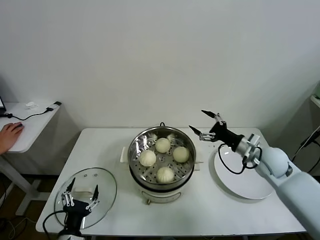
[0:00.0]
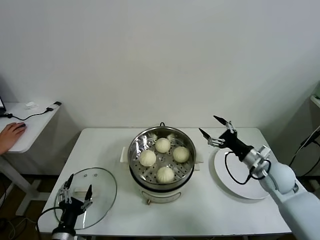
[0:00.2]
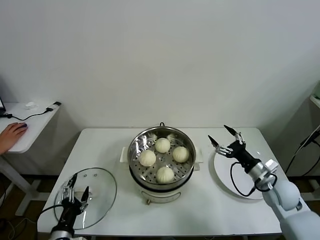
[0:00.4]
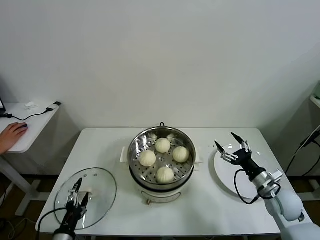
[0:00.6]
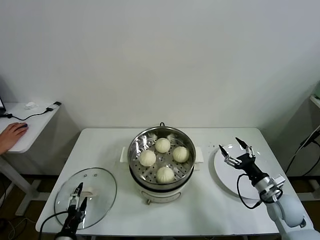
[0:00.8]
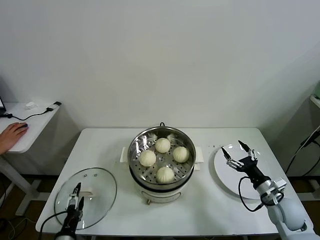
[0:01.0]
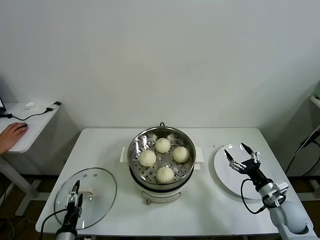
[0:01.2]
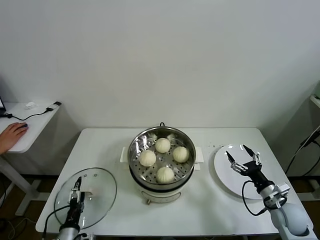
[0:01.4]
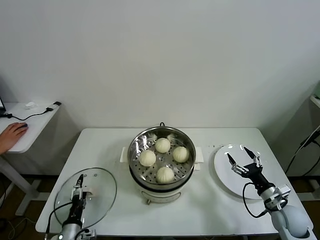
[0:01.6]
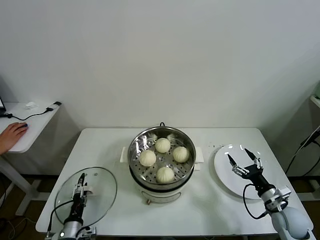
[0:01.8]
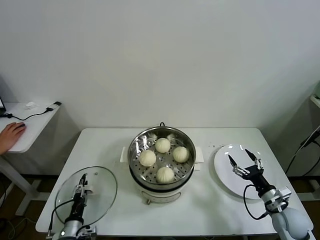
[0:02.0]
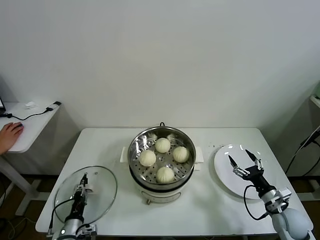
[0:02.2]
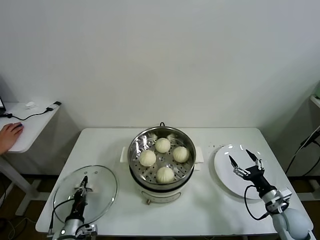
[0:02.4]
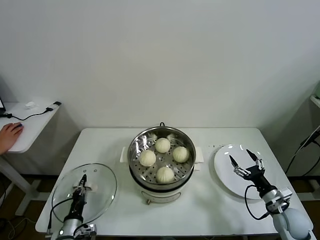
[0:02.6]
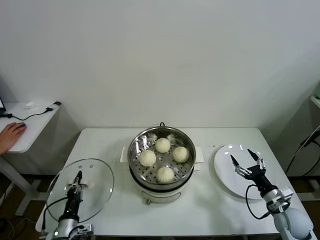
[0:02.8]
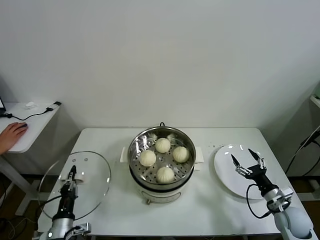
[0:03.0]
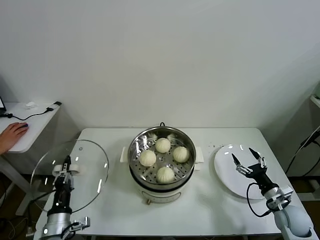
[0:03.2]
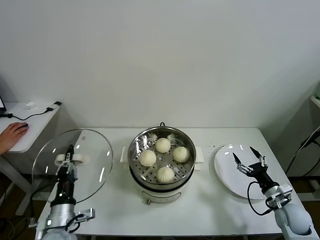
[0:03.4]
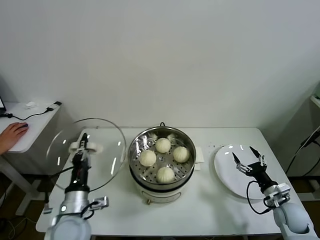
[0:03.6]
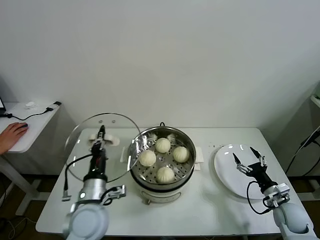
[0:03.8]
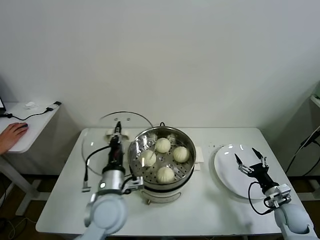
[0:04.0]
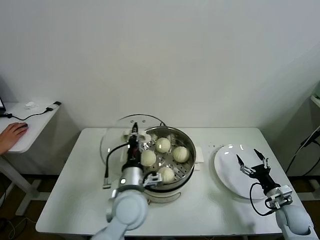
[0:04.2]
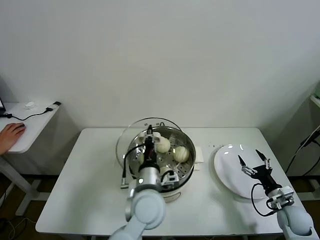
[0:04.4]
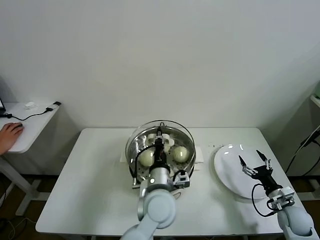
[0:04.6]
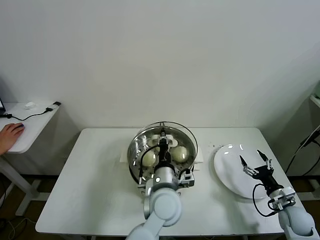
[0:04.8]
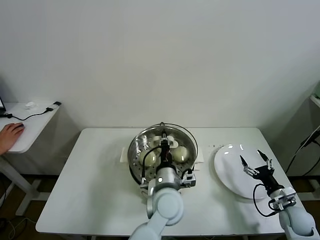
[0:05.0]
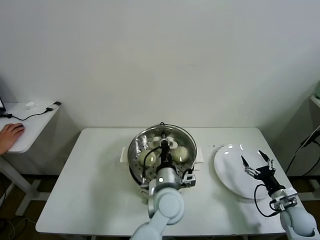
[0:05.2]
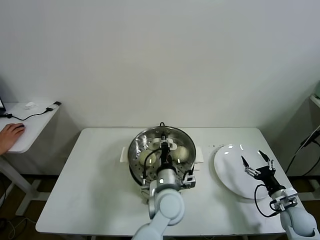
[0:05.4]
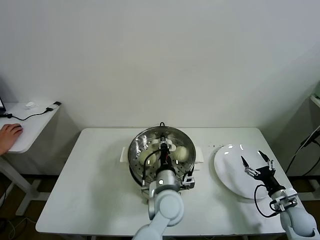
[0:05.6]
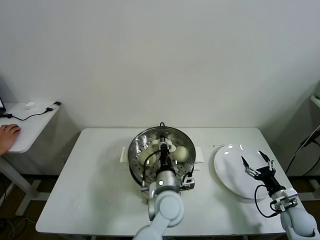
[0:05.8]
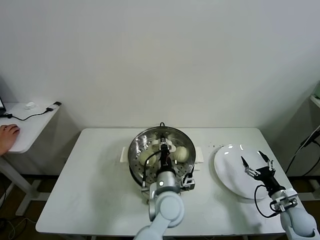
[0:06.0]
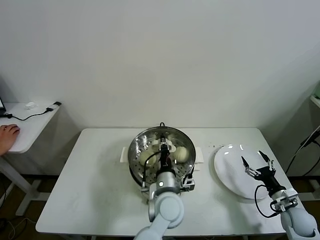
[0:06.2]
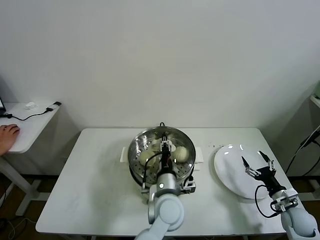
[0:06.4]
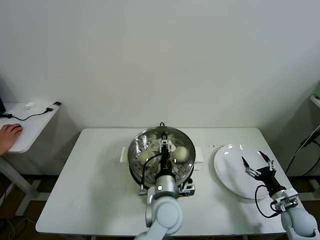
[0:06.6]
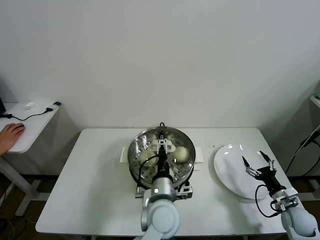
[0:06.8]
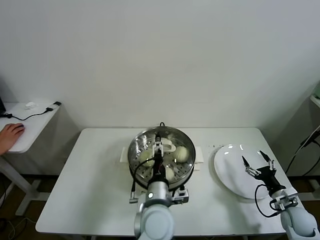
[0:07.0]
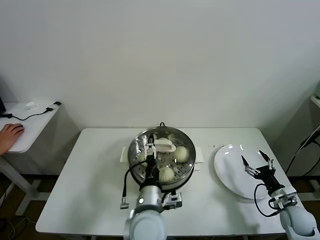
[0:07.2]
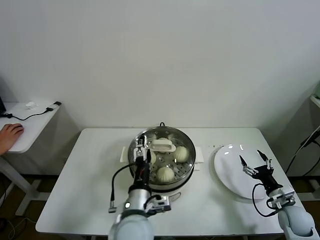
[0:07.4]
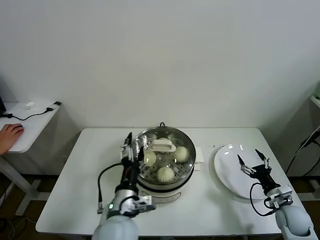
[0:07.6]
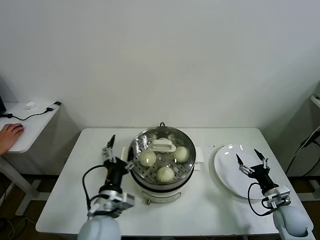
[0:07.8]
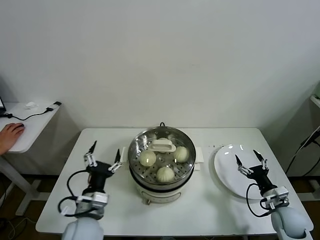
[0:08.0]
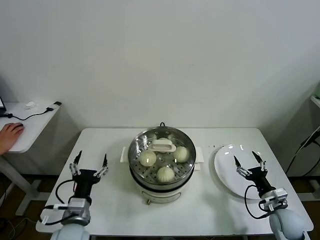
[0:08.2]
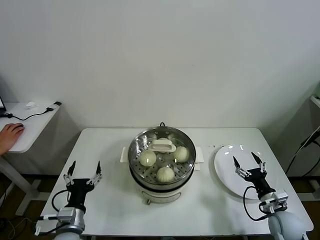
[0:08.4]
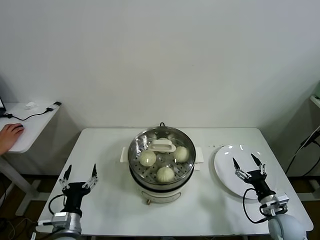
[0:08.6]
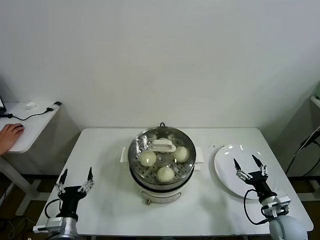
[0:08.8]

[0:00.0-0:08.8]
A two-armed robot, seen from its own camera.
Task of the whole recording: take steamed baozi put them in steamer.
Step, 0:00.0 to 0:02.4: Grasp the pot lid with left gripper.
Step, 0:02.6 to 0:06.8: Place the pot lid on the steamer with left gripper.
0:00.0 to 0:01.4: The right gripper moves downward, backward and to the right, some 20 cm, while the left gripper moves downward, some 5 cm.
0:01.4 to 0:03.0: The left gripper closes up.
0:03.0 to 0:04.4: The left gripper is displaced to the right and upward by about 30 cm.
0:04.4 to 0:05.8: The left gripper shifts approximately 5 cm to the right.
0:05.8 to 0:07.4: The left gripper travels backward and to the left by about 10 cm, and opens its fingers.
0:07.4 to 0:08.8: The left gripper travels to the left and downward by about 25 cm, while the right gripper is displaced to the left by some 5 cm.

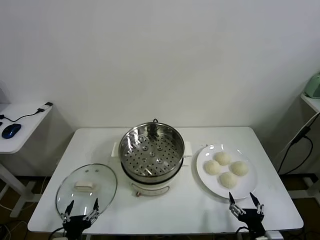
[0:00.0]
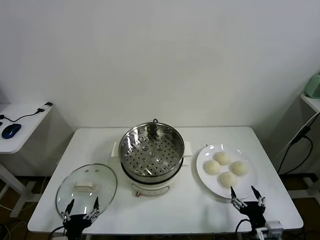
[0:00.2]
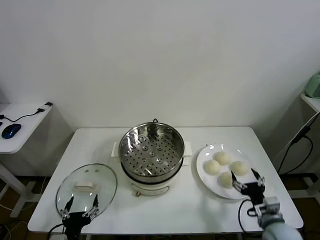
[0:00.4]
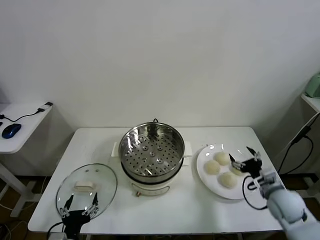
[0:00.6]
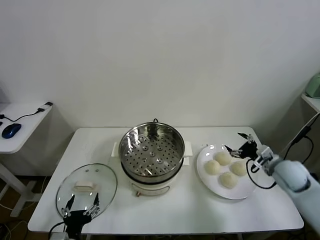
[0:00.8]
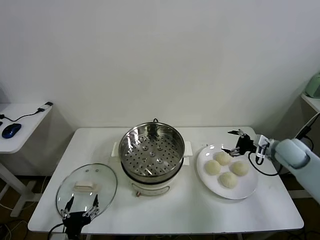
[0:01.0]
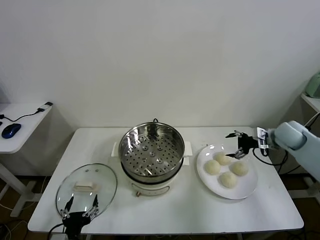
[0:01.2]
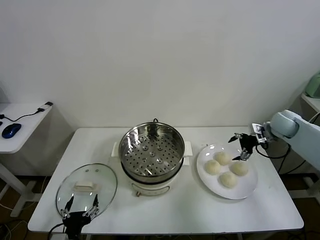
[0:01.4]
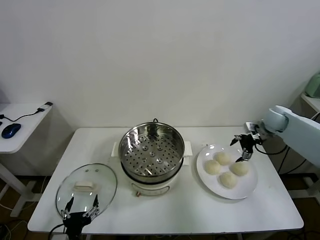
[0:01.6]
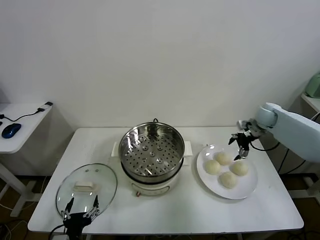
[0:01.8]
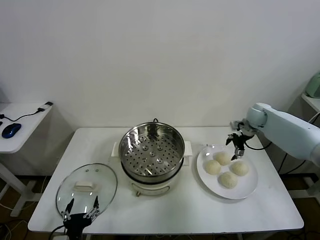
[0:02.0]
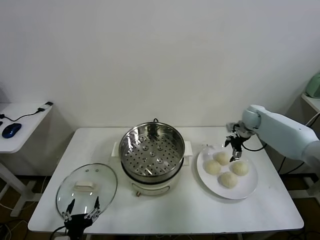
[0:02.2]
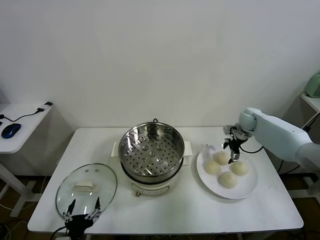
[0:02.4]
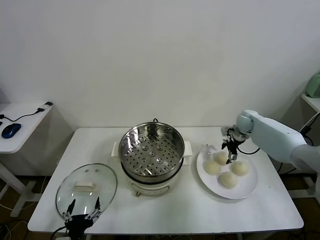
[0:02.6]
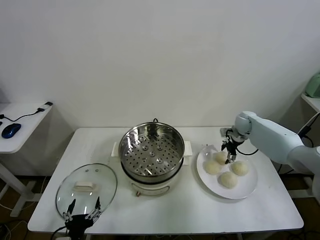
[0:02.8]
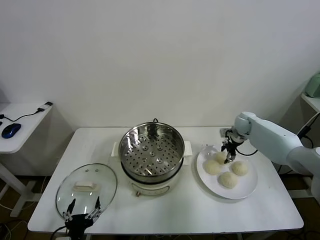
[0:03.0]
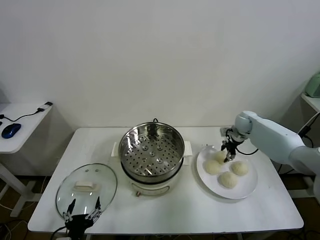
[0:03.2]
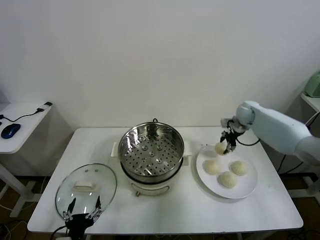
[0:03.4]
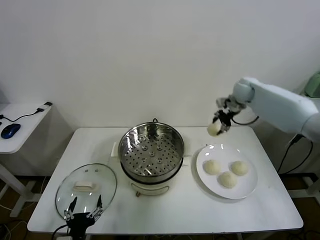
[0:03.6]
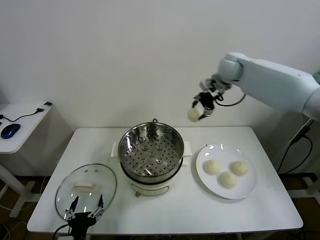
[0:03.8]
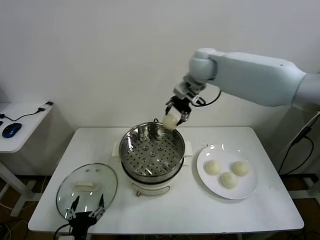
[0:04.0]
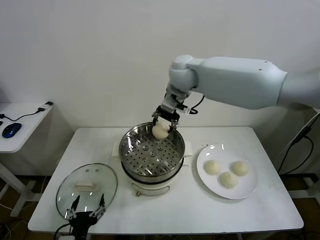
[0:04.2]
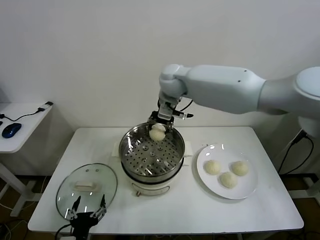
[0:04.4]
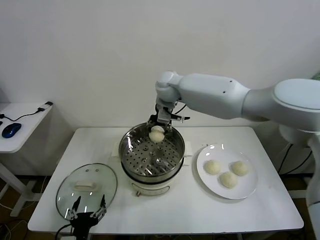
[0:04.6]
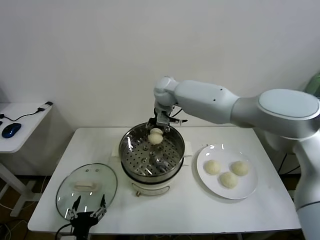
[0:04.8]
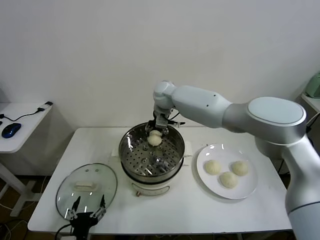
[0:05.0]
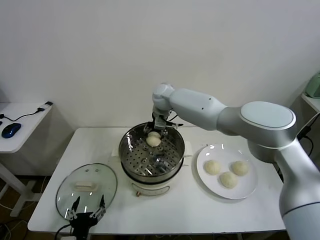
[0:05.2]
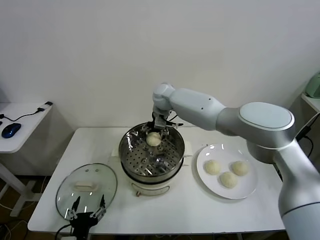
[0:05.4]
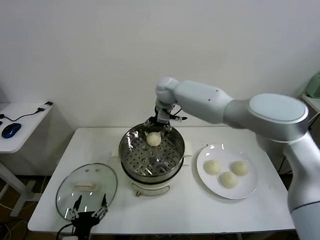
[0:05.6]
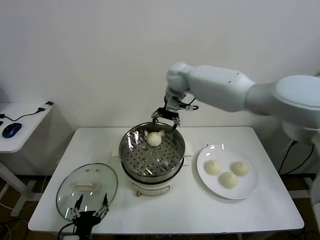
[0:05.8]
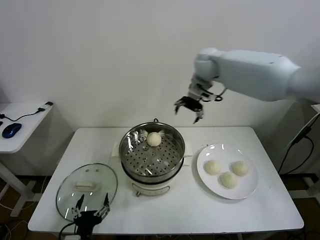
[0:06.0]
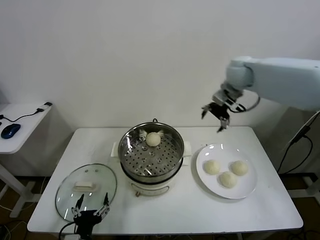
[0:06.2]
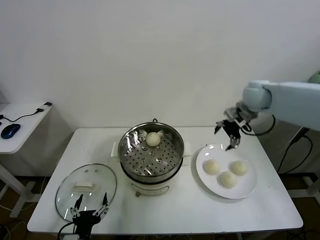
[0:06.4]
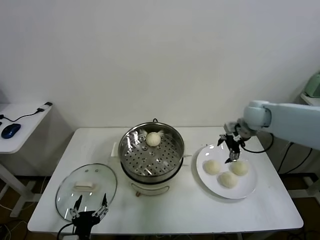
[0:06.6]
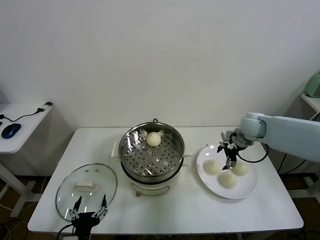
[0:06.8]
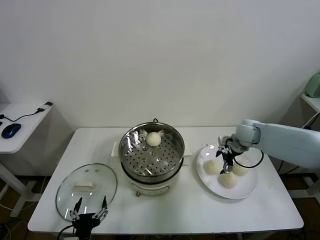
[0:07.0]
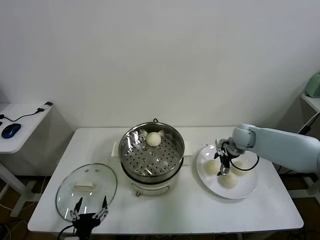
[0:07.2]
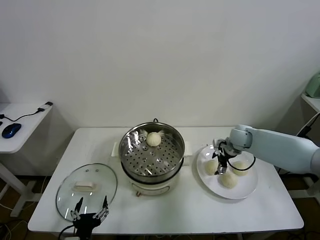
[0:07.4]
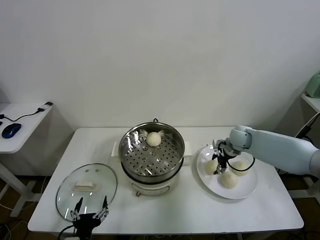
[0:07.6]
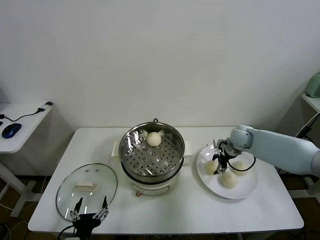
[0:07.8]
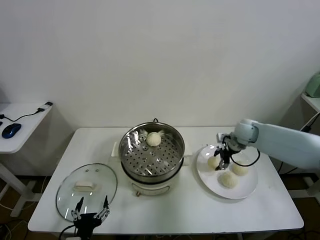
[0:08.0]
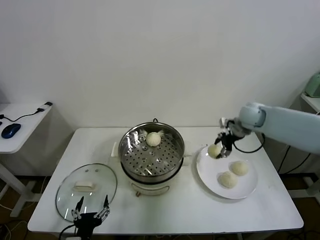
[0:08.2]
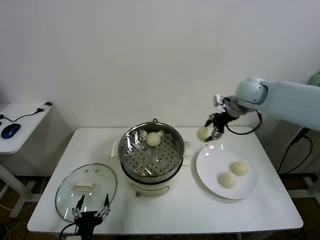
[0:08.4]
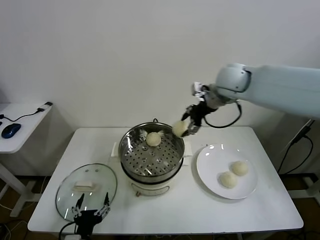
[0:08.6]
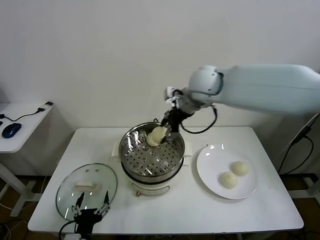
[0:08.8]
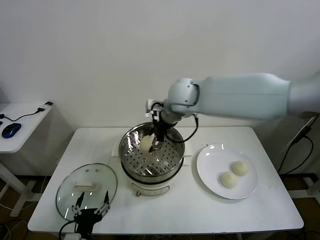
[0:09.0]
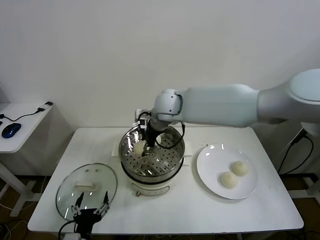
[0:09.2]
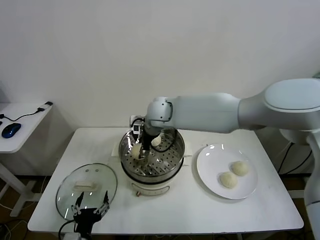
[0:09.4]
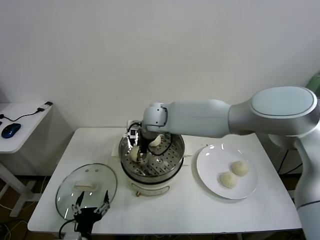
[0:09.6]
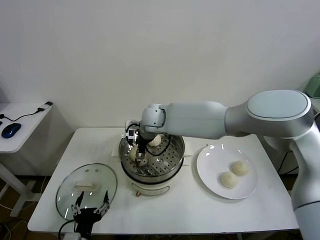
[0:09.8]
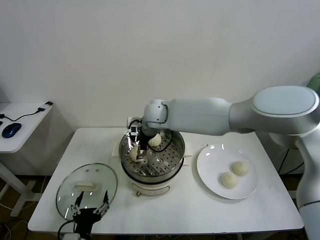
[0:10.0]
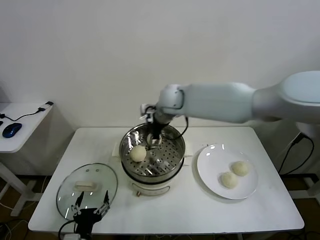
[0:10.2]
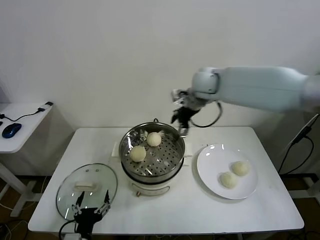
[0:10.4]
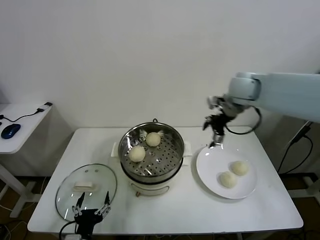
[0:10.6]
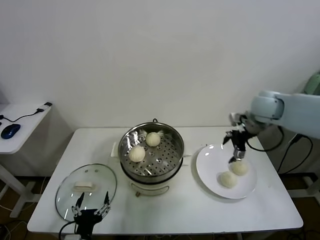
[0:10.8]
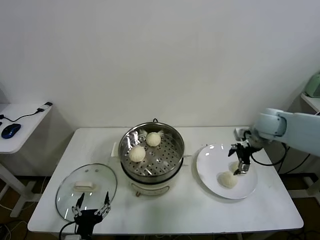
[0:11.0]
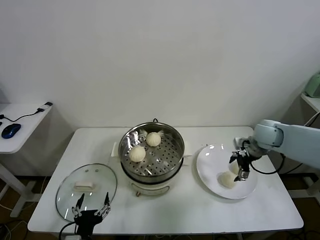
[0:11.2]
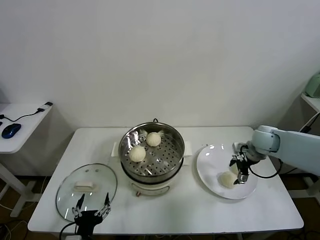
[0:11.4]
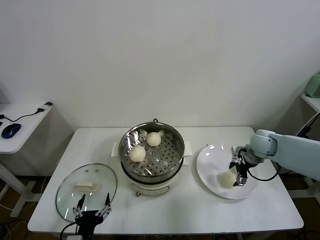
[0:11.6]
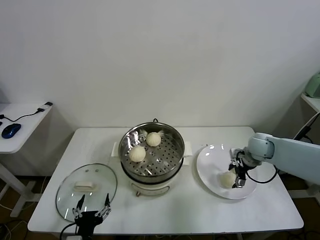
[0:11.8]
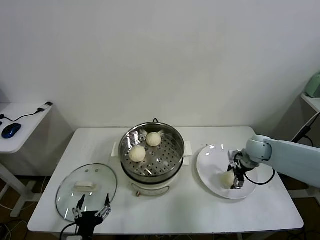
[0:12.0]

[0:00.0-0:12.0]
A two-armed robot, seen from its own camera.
Task of the whole recording: take steamed baozi put them in steamer.
Step, 0:00.0 to 0:03.0: Grasp the baozi in the plate with right gripper.
Step, 0:03.2 to 0:05.4: Place the baozi on the steamer with right gripper.
Step, 0:05.8 to 0:07.8: Grasp the baozi in the plate with right gripper.
Step, 0:08.2 to 0:10.0: Place the baozi on the steamer with right gripper.
0:01.6 to 0:03.0: The right gripper travels downward and to the left by approximately 10 cm, and closes its fingers.
0:03.0 to 0:04.4: The right gripper goes approximately 40 cm to the left and upward.
0:04.4 to 0:06.0: The right gripper heads to the right, covering about 15 cm, and opens.
0:06.0 to 0:07.6: The right gripper moves downward and to the right, about 30 cm, and closes.
0:07.6 to 0:09.0: The right gripper is displaced to the left and upward by roughly 35 cm.
0:09.0 to 0:10.4: The right gripper heads to the right, covering approximately 10 cm, and opens up.
0:10.4 to 0:12.0: The right gripper heads downward and to the right, covering some 30 cm.

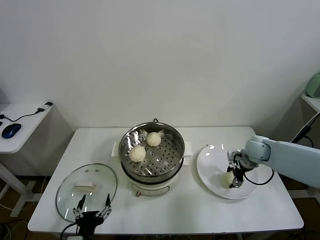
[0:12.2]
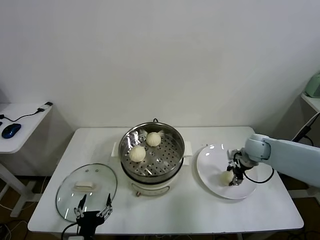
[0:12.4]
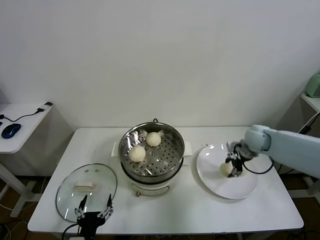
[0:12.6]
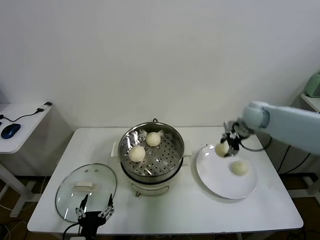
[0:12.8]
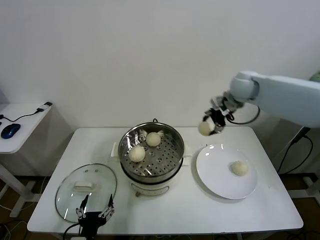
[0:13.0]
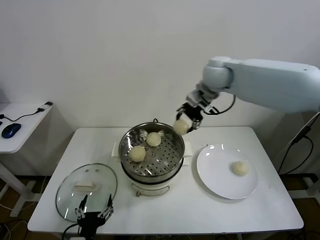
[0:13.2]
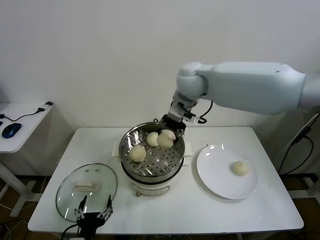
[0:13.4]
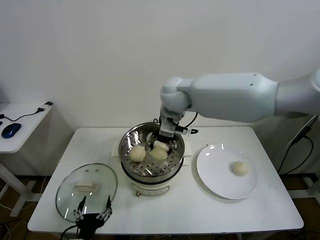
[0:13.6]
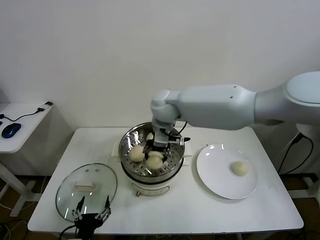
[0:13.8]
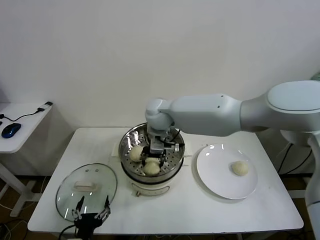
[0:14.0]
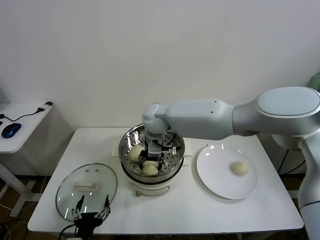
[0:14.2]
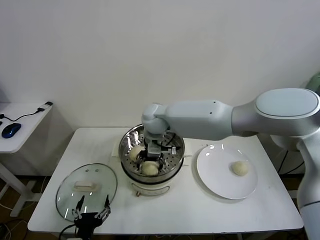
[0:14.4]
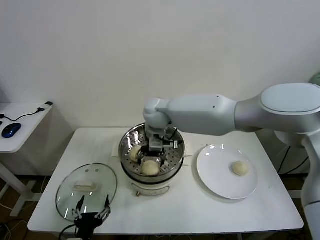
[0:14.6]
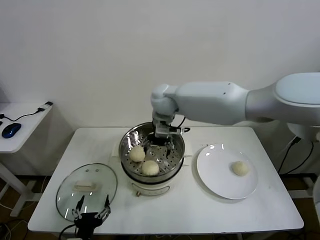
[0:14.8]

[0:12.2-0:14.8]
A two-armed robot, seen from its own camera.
Task of the whole recording: take steamed baozi put them in steamer.
Step, 0:12.6 to 0:14.8: Place the baozi on the steamer with right gripper.
0:12.2 to 0:13.4: The right gripper shifts approximately 40 cm to the left and upward.
0:13.4 to 0:14.8: The right gripper shifts about 10 cm downward and to the left, and opens.
